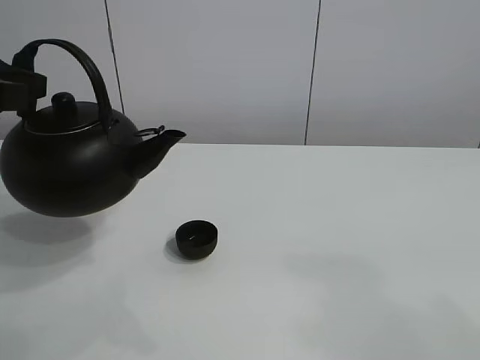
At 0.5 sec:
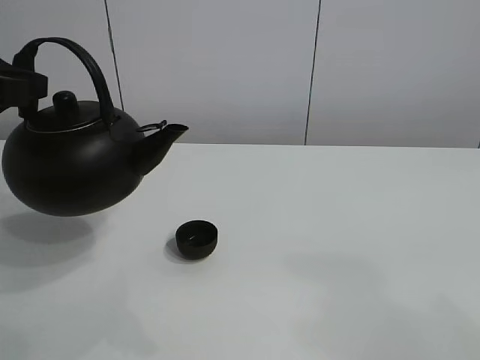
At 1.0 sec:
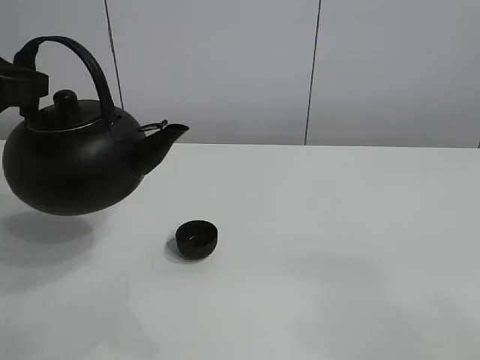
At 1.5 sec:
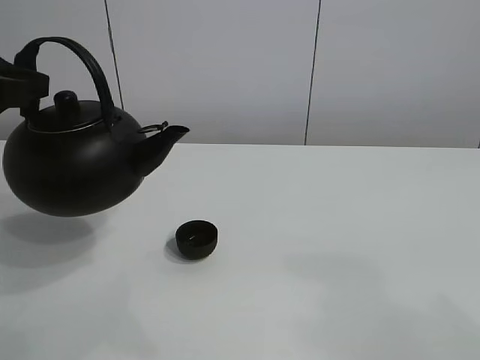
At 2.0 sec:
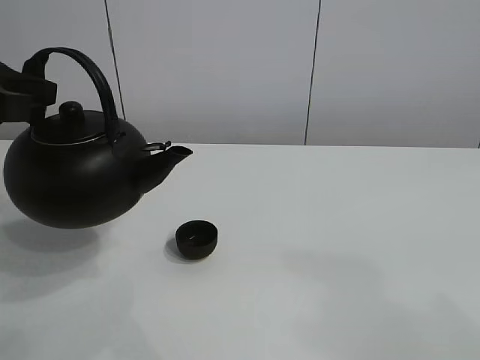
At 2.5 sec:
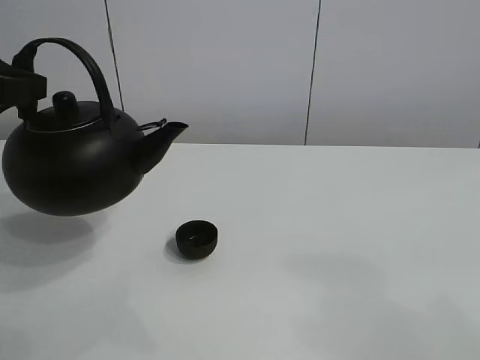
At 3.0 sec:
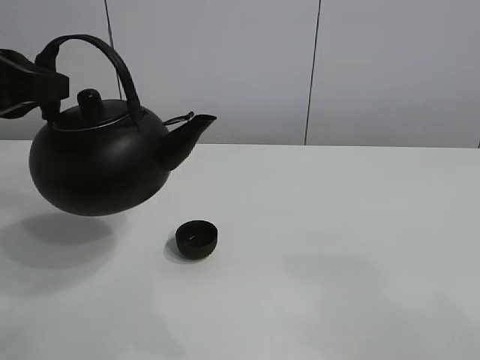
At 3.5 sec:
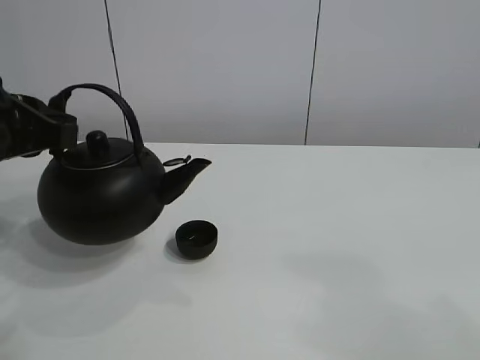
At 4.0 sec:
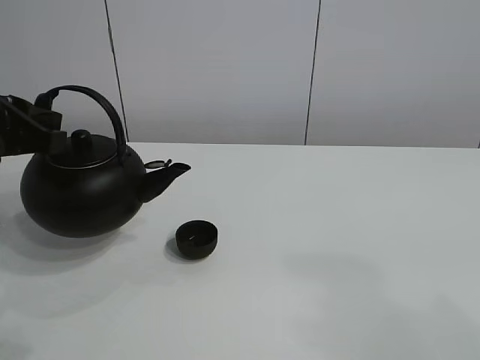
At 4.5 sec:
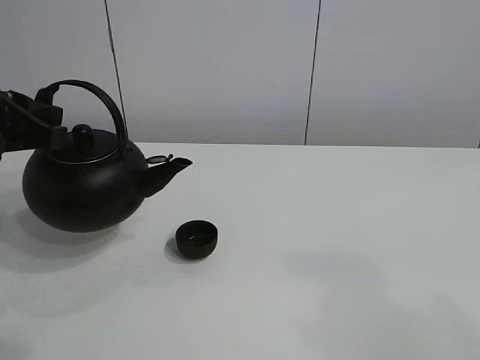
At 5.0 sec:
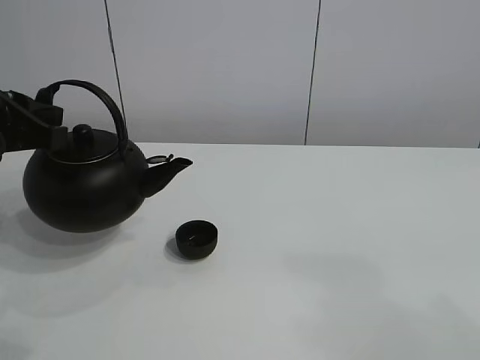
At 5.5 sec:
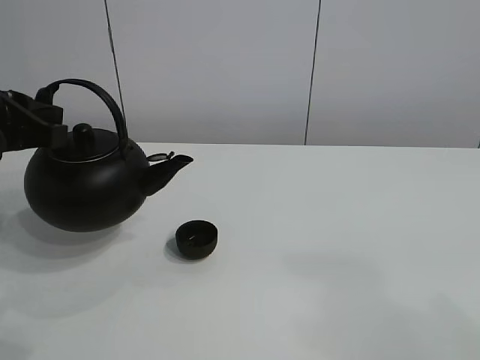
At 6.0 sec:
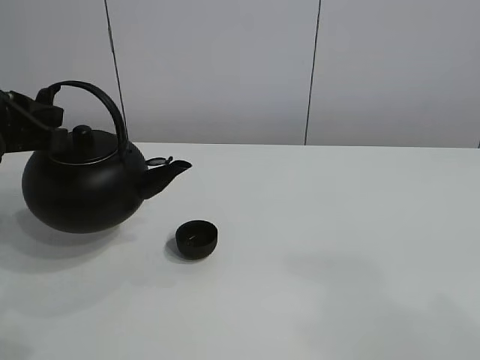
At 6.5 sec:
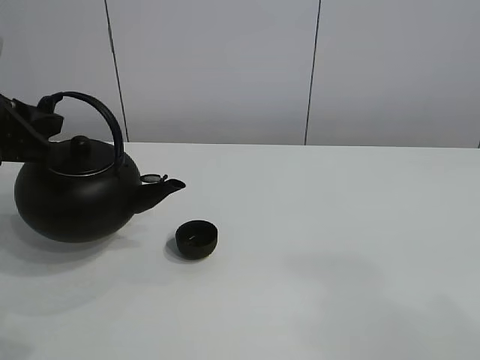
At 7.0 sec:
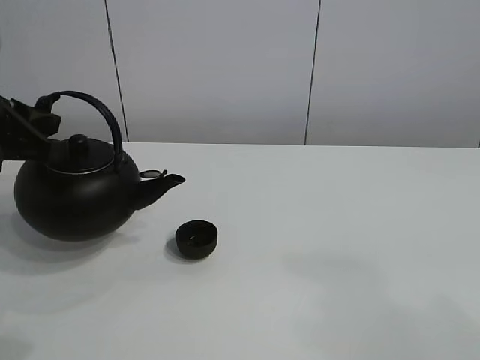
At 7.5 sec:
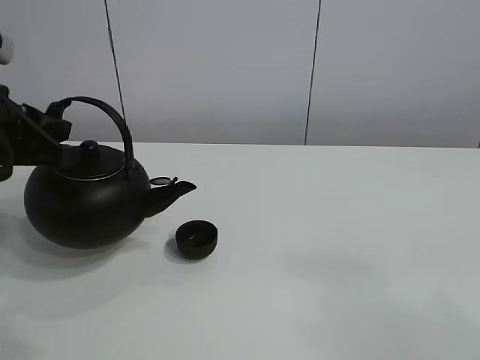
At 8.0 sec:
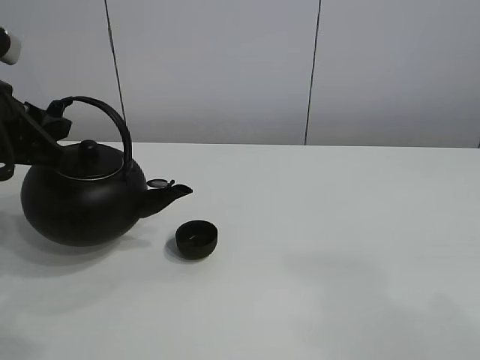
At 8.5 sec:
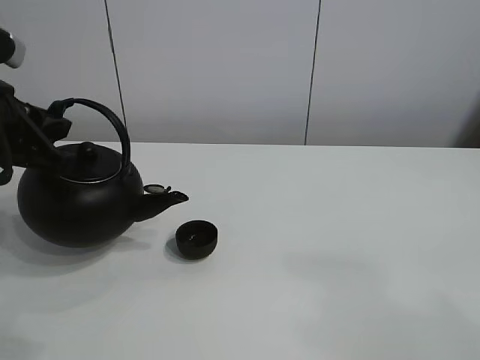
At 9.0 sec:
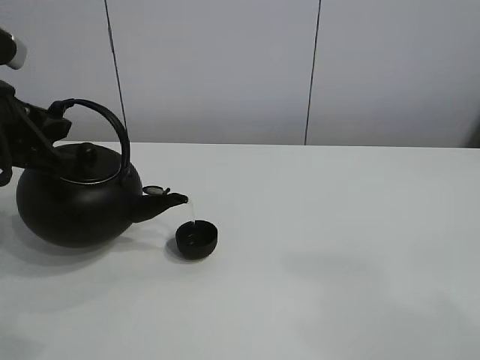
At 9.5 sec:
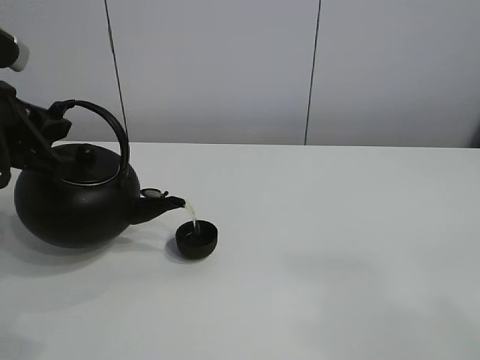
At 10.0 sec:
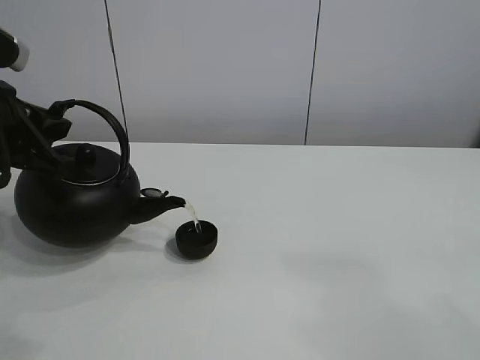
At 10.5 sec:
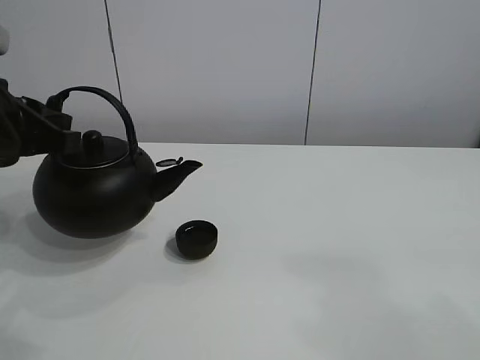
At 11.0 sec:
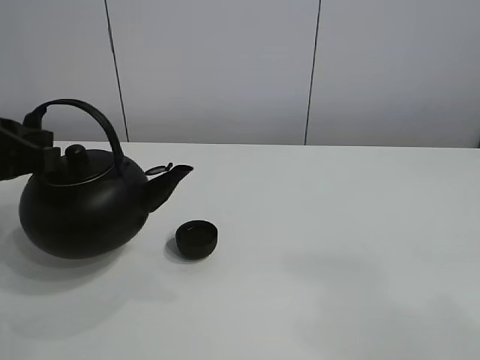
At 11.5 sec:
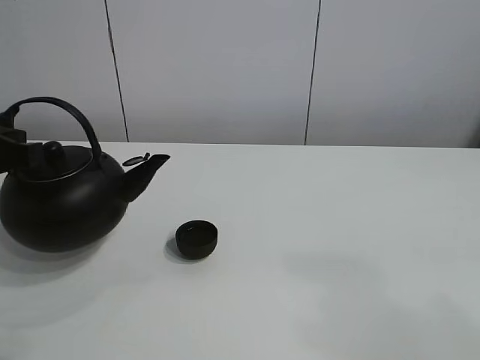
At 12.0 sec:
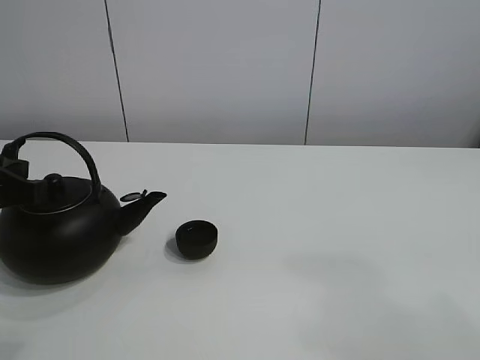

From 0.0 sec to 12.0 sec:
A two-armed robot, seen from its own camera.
Task of the whole recording: pour tea into the teacup.
Step, from 0.0 sec to 10.0 sec: Pour tea into the teacup with the left gripper.
From 0.0 sec to 2.0 sec: Both grippers stay put.
From 2.0 sec to 4.0 sec: The grippers make only small movements.
From 4.0 sec to 6.0 sec: Neither gripper changes place.
From 6.0 sec to 10.0 sec: The grippers move only a little.
From 10.0 sec to 12.0 sec: The left gripper shifts by approximately 5 cm.

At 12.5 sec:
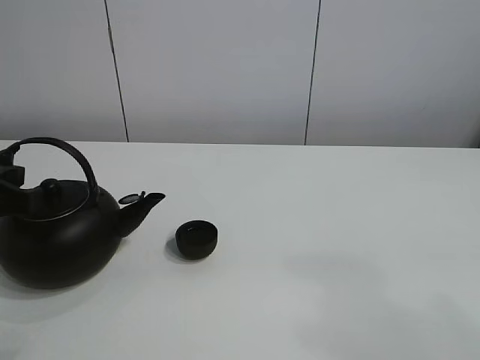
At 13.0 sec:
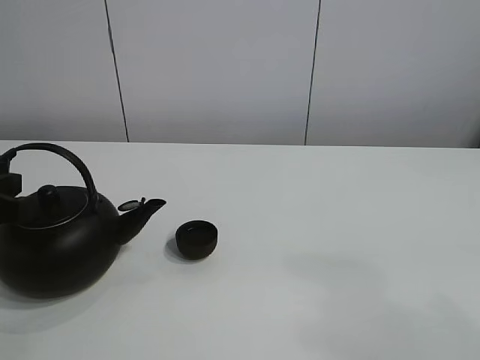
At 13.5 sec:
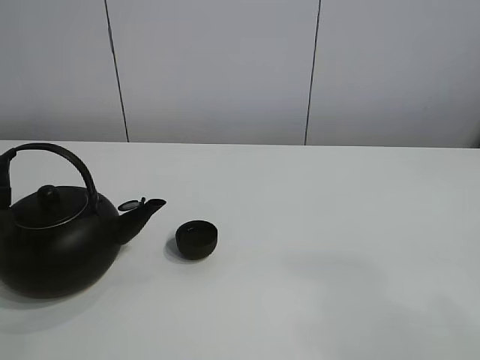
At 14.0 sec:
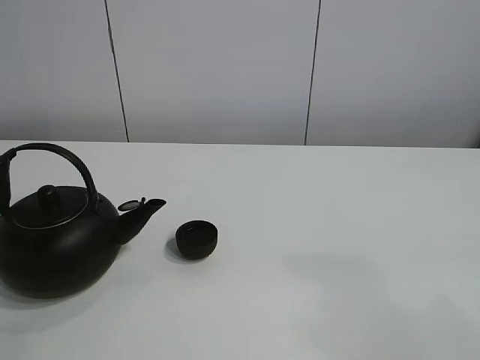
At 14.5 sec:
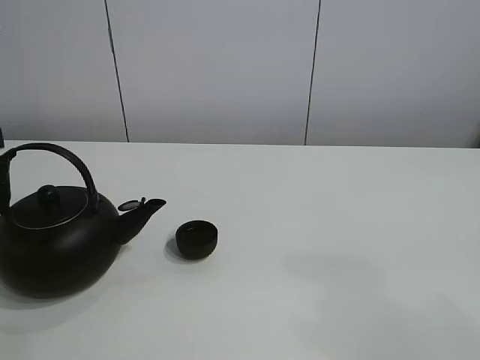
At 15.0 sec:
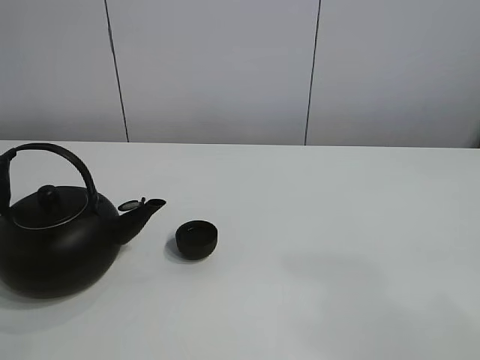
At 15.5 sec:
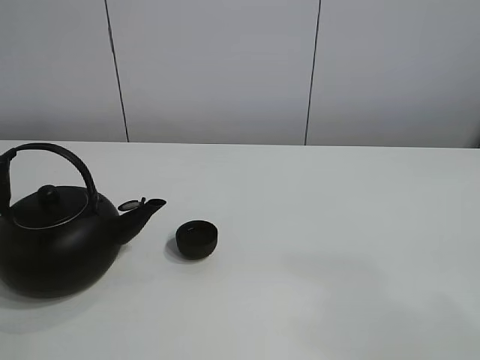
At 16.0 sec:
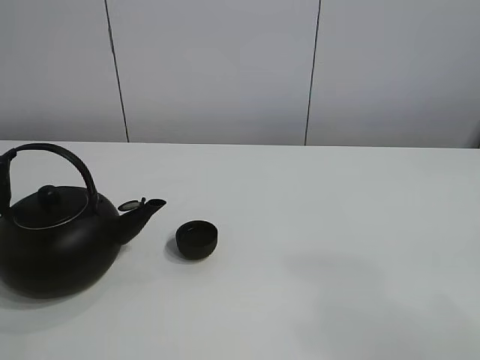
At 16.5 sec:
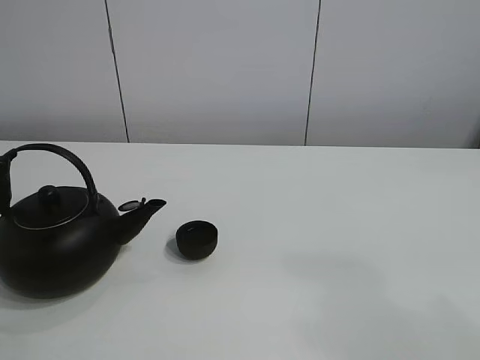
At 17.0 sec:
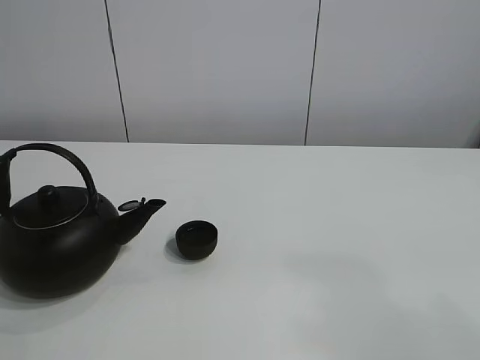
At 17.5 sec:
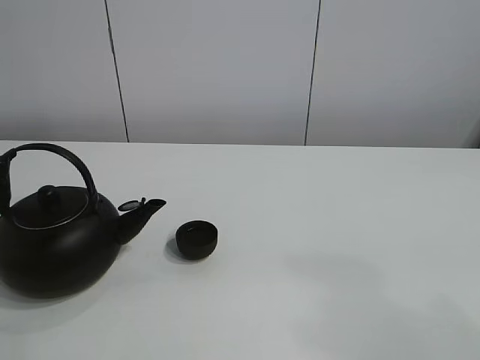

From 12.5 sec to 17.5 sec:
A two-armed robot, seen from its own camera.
Task of the whole recording: pour tea into the teacup.
From 12.5 sec to 15.0 sec: The left gripper moves upward, some 20 cm, and opens its fingers.
